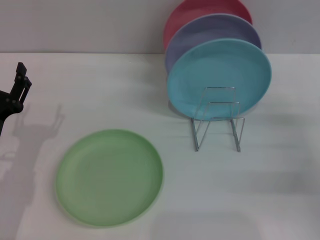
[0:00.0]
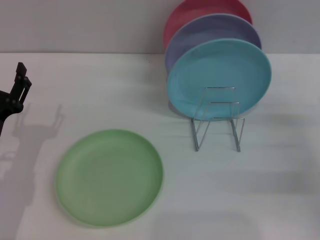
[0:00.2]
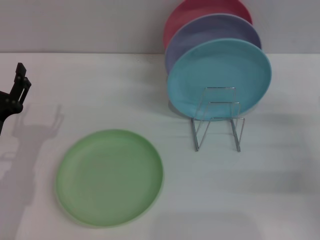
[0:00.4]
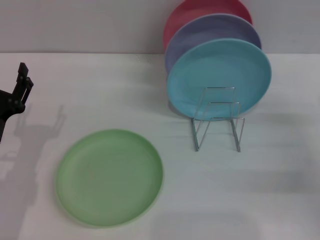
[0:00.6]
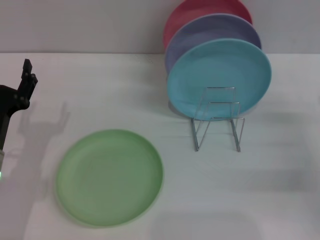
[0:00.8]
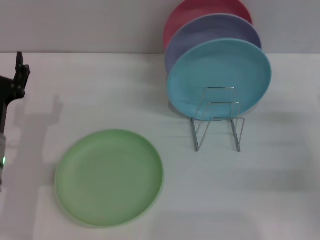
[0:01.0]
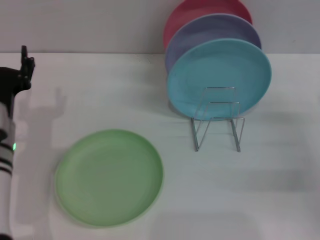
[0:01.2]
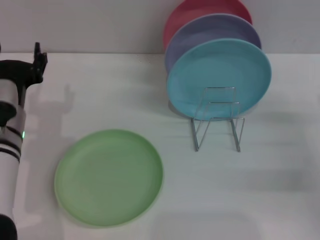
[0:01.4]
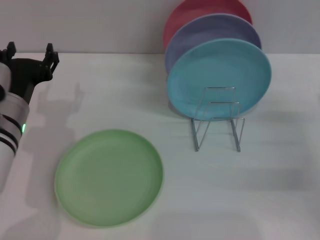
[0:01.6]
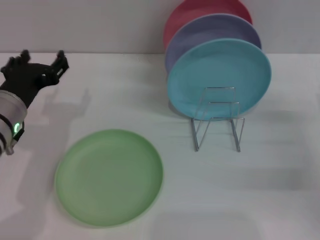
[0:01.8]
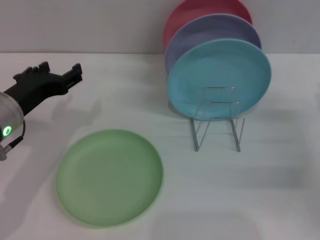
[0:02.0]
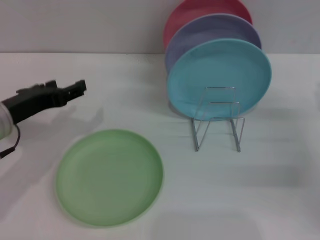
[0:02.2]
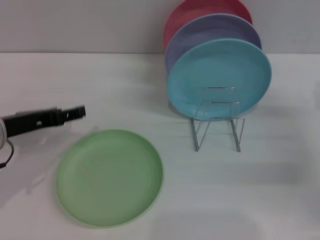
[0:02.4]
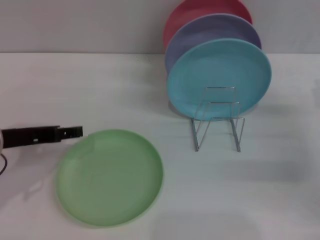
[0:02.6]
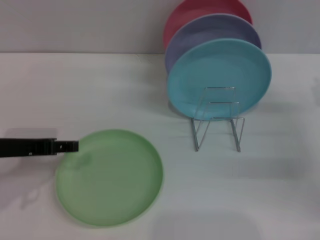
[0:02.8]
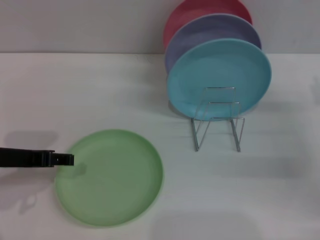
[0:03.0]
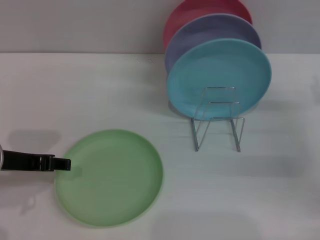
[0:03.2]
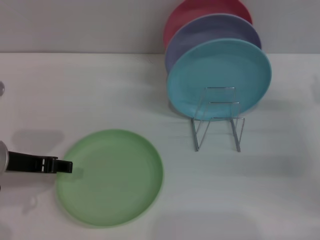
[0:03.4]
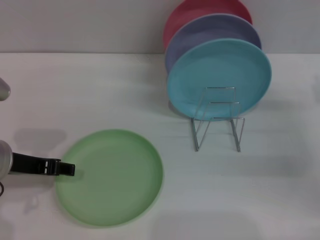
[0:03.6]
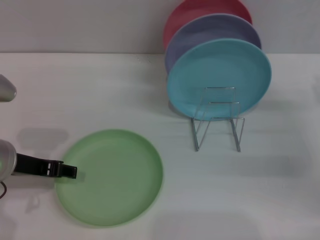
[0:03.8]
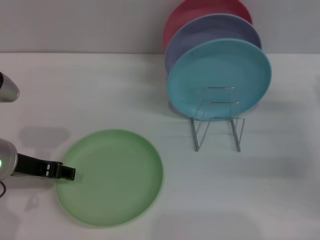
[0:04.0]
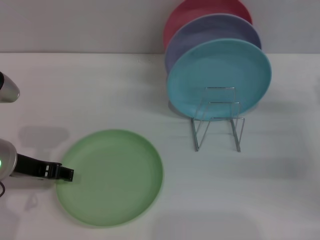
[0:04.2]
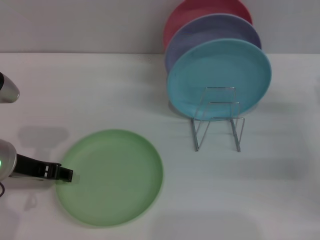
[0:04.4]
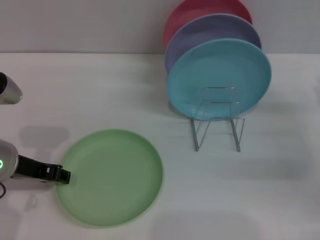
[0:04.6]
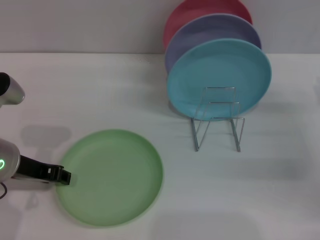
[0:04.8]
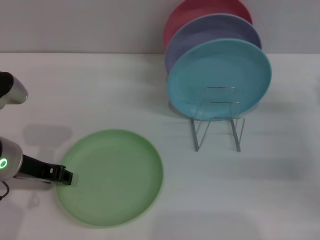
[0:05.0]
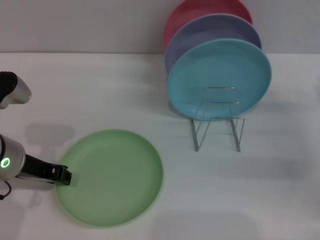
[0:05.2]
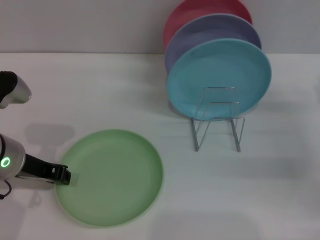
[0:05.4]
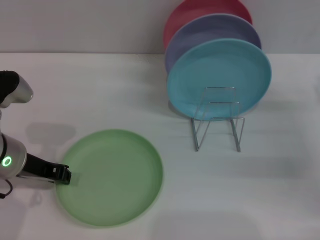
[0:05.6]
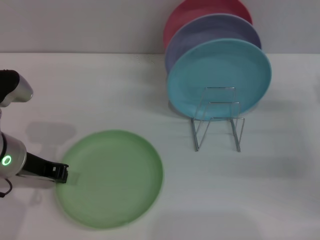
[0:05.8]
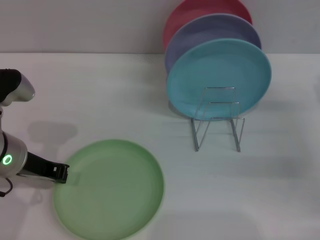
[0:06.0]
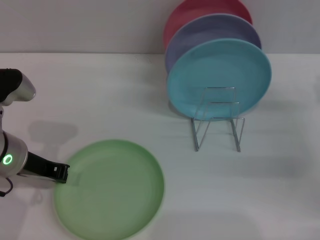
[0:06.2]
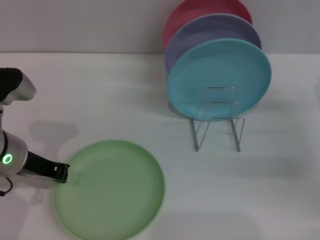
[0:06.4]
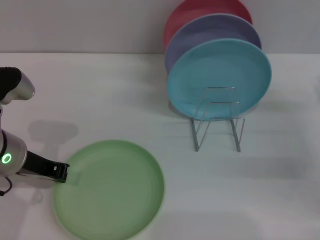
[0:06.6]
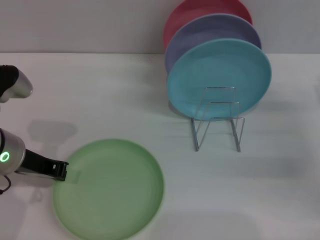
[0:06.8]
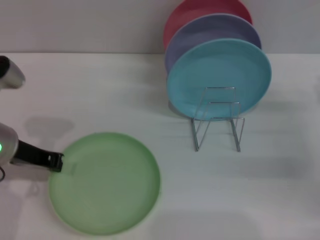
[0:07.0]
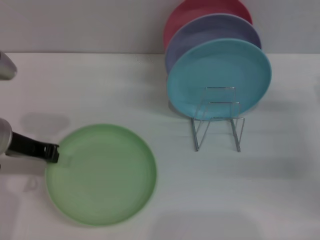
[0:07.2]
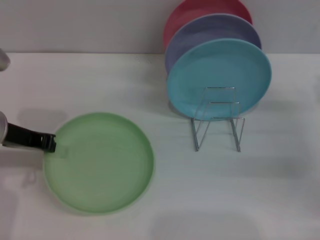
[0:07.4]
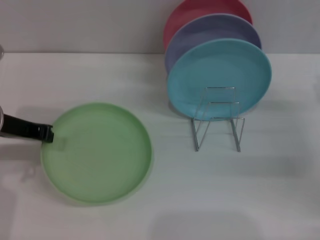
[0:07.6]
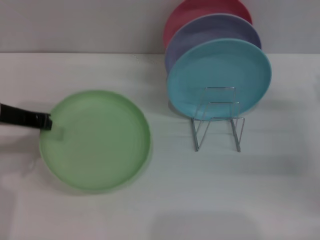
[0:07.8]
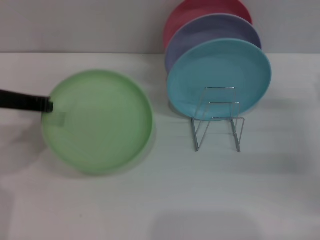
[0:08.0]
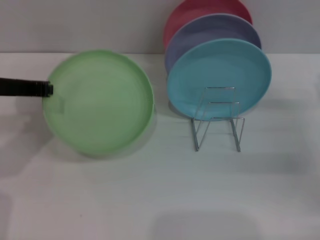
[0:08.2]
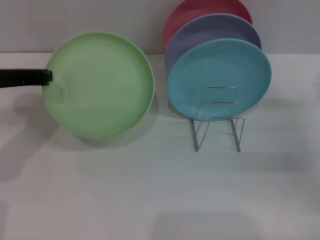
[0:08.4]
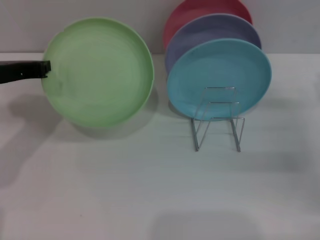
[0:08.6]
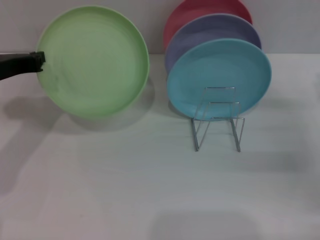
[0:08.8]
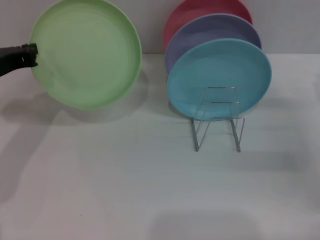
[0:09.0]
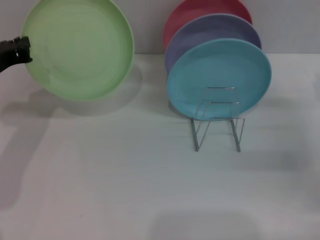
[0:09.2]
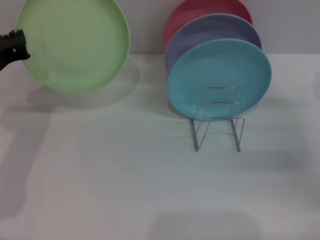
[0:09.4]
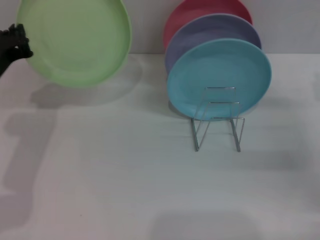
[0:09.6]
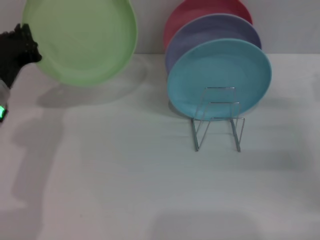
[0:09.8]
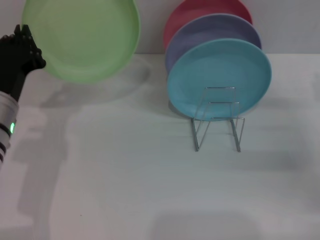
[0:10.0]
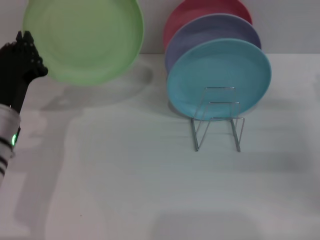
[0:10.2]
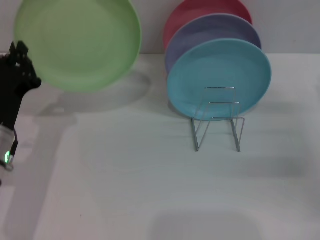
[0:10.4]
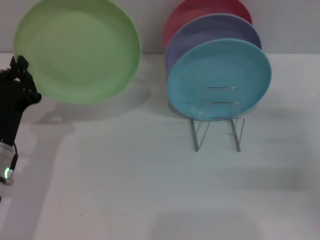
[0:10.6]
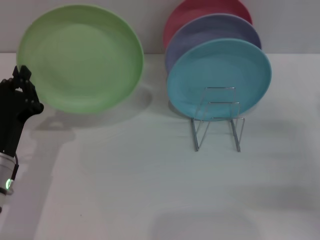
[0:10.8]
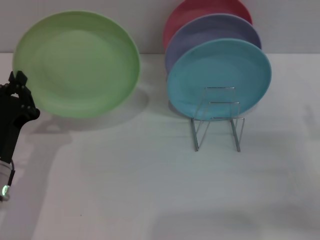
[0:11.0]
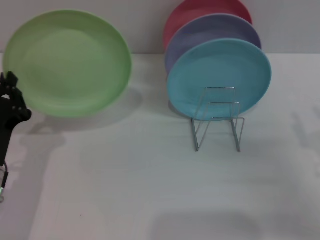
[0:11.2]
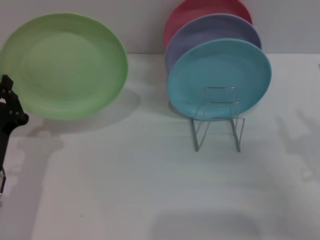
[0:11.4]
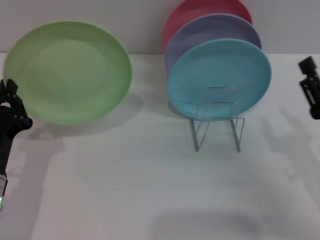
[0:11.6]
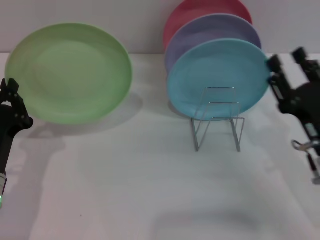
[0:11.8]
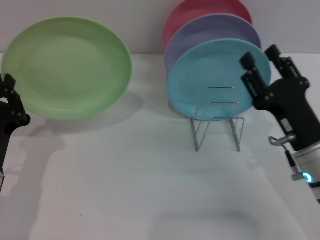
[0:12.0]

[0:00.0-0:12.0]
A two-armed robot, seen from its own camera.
Task of the whole recording: Grip the plate with one hand, pass it to the other, then set it on the shelf.
Step, 0:00.0 to 0:06.6: Pick up the plate with the left gripper.
0:00.0 to 0:01.6: The left gripper is displaced upward, forward and to the right by approximately 10 cm.
0:01.6 to 0:03.0: The left gripper moves upward, roughly 5 cm.
0:03.0 to 0:04.4: The grippers stay close to where they were, moving slightly.
0:04.4 to 0:06.0: The left gripper closes.
0:06.0 to 0:07.6: The left gripper changes place by some 5 cm.
0:09.0 to 0:10.4: The left gripper moves downward and backward, some 10 cm.
0:10.4 to 0:12.0: The left gripper moves about 5 cm. Meanwhile the right gripper moves to the left, approximately 15 cm.

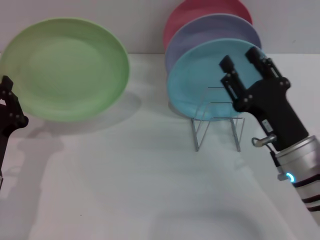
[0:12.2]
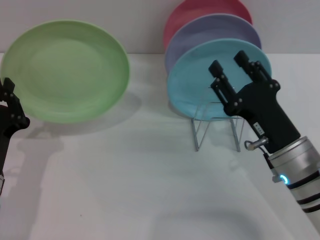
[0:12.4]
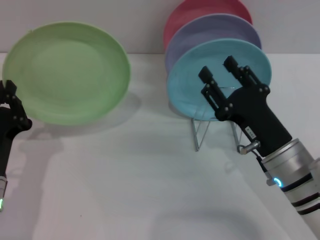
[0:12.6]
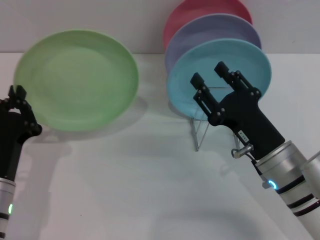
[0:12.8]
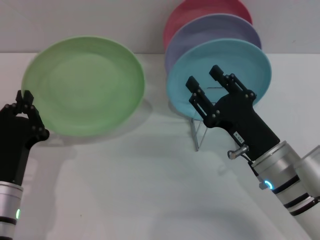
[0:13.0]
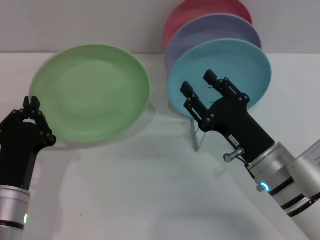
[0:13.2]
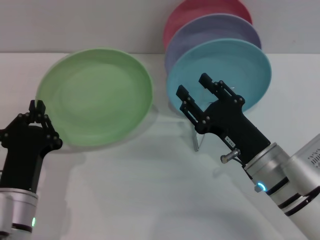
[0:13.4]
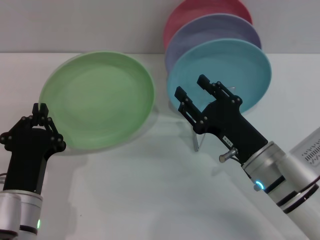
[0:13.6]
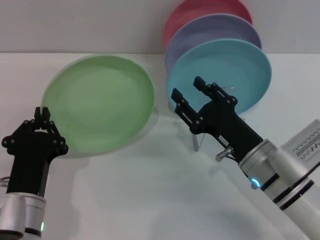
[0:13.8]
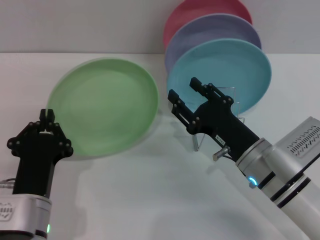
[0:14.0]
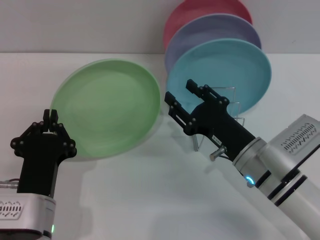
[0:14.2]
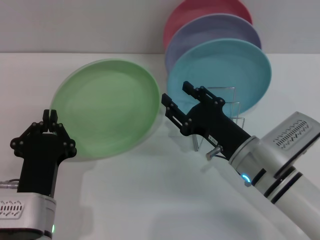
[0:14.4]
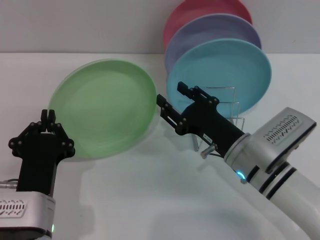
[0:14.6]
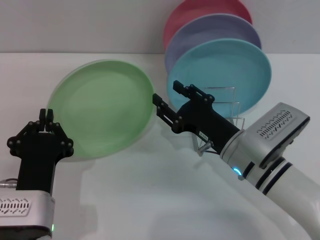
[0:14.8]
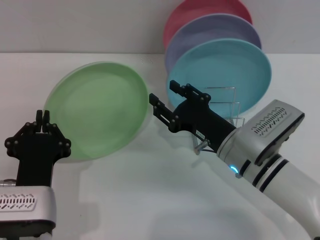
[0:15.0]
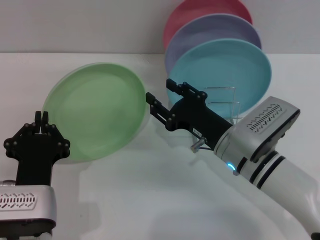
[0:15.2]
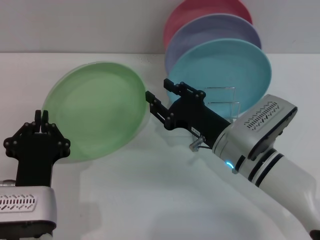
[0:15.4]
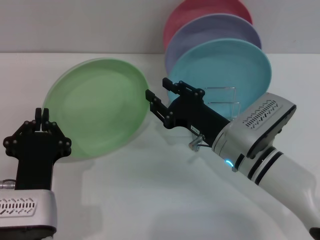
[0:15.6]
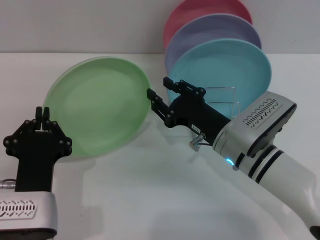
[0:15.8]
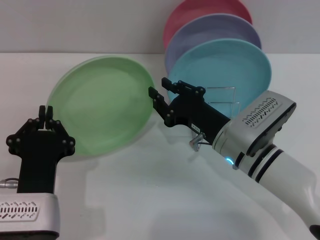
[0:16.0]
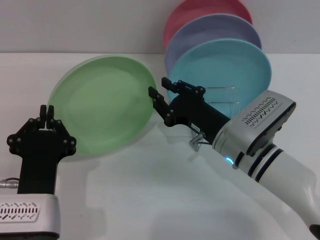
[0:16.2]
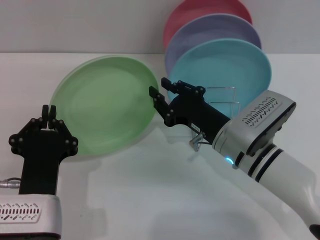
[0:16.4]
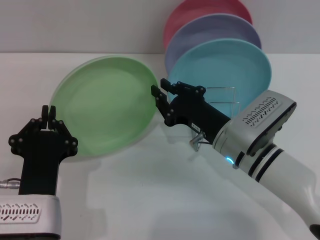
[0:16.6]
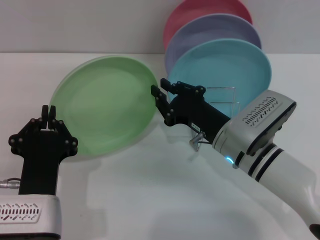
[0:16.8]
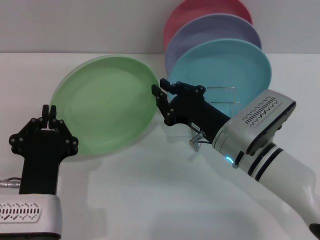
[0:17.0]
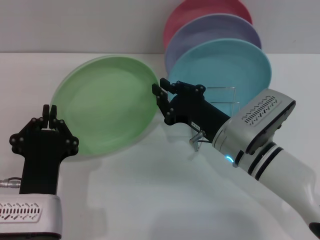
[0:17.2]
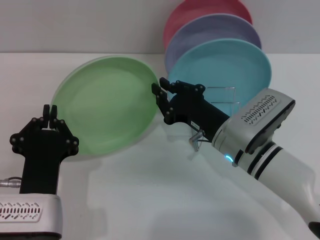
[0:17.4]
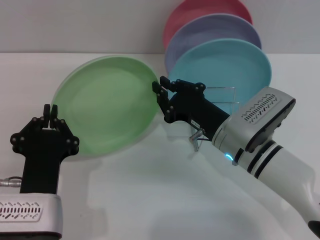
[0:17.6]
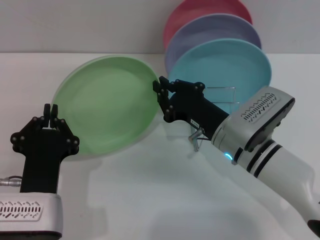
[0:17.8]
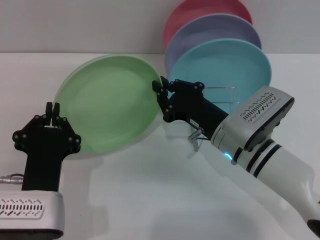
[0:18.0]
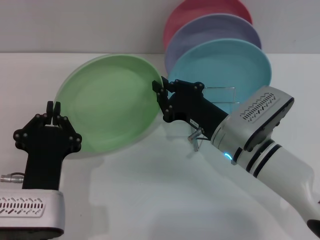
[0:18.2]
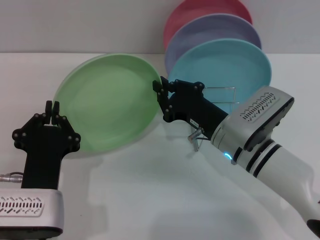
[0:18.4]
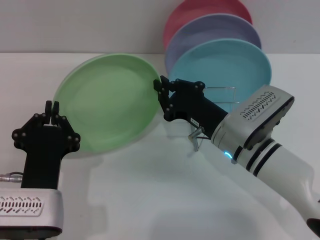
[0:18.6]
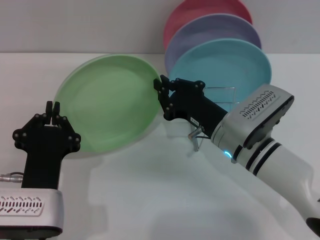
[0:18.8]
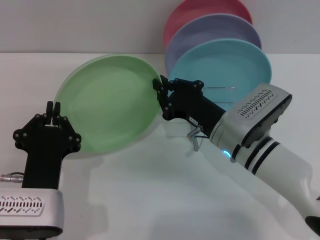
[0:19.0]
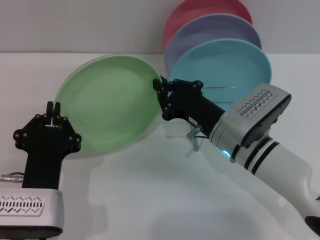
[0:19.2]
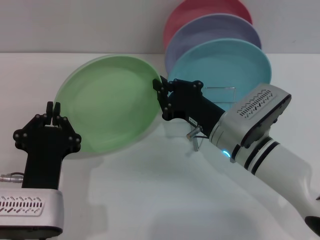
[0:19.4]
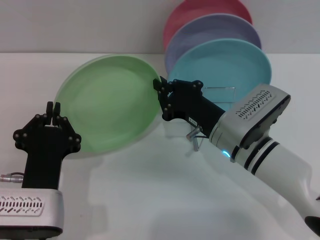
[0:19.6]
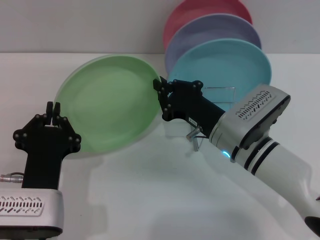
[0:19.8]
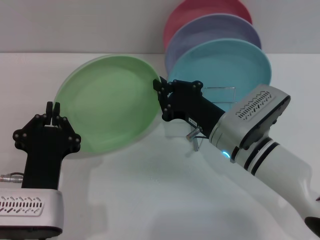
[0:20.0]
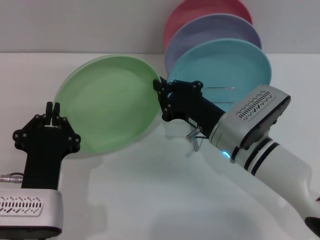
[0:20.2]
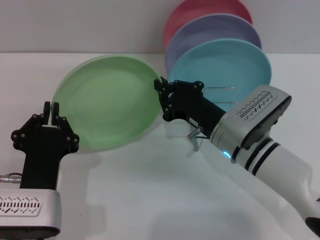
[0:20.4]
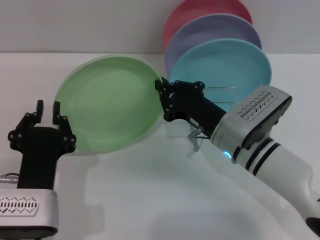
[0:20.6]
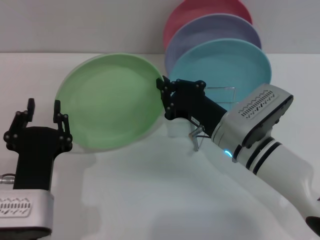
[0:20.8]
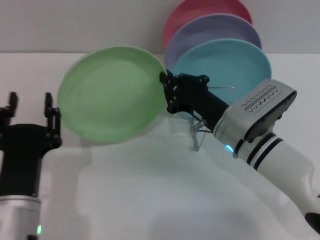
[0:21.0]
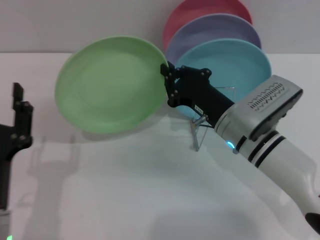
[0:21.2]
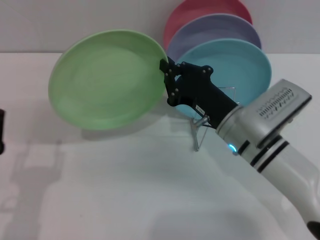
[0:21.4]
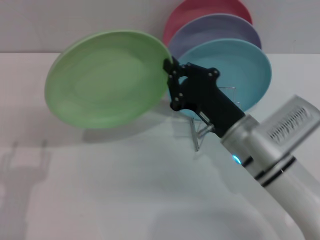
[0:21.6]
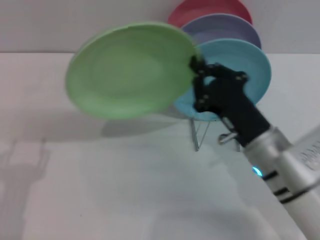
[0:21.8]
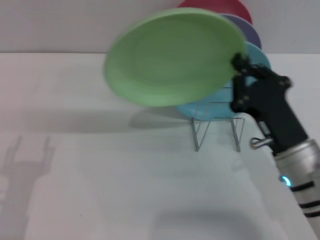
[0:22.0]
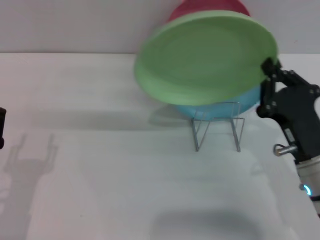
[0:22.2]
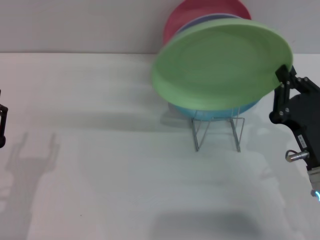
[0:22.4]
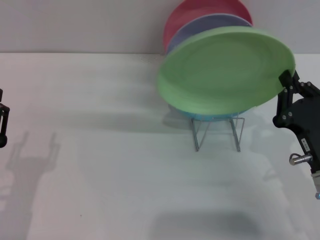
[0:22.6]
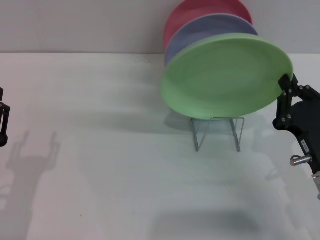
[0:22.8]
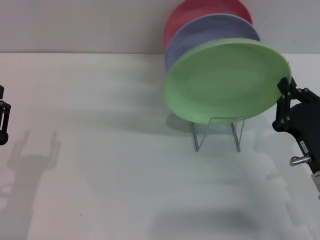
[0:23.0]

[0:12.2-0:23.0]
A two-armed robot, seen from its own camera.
Task of the whole recording: Grip the plate with one hand, pass it to the other, then set it on the shelf.
Step, 0:12.2 to 0:21.0: Pass the plate from the left gripper to the right gripper.
0:12.2 to 0:13.8: The left gripper is displaced to the right by roughly 5 cm.
0:13.8 to 0:15.2: There are only small adjustments of the grippers.
0:15.2 to 0:16.8: The right gripper closes up.
0:16.8 to 0:20.0: Both grippers stay about where they are.
0:20.0 to 0:21.4: The left gripper goes about 10 cm to the left, and opens.
0:21.4 to 0:23.0: The right gripper is displaced to the right and backward by roughly 15 cm.
